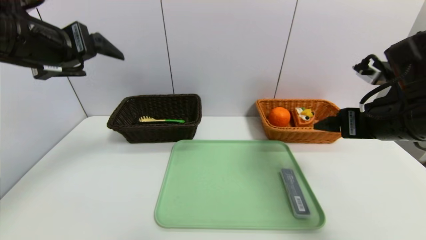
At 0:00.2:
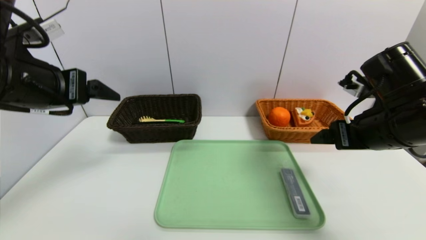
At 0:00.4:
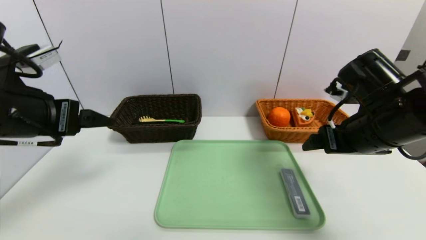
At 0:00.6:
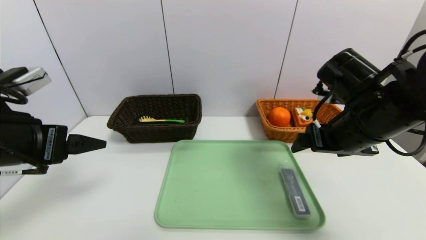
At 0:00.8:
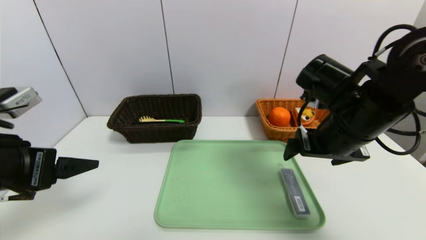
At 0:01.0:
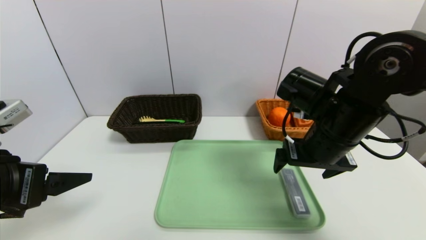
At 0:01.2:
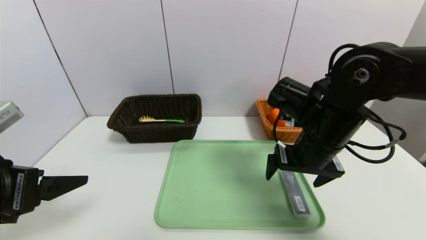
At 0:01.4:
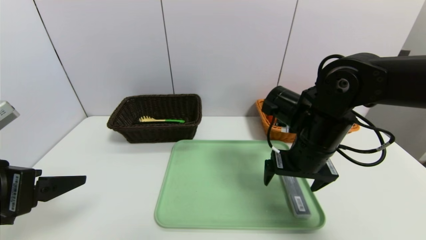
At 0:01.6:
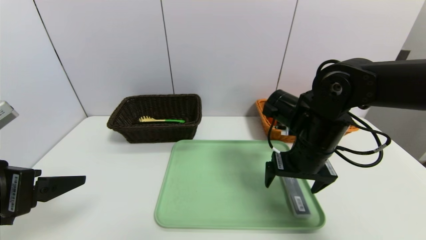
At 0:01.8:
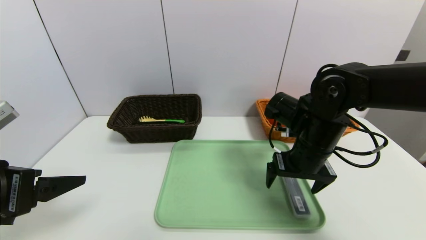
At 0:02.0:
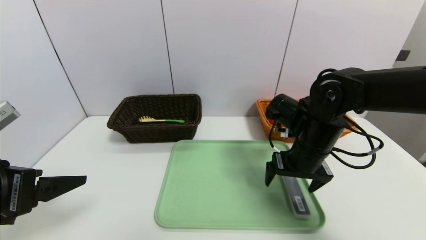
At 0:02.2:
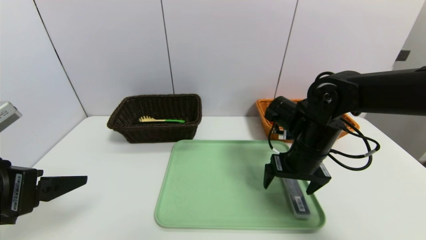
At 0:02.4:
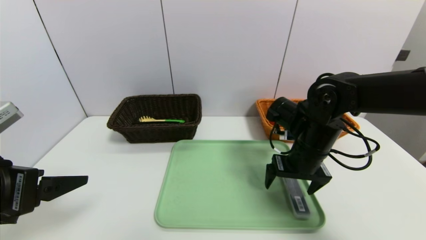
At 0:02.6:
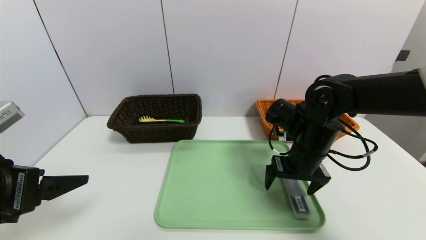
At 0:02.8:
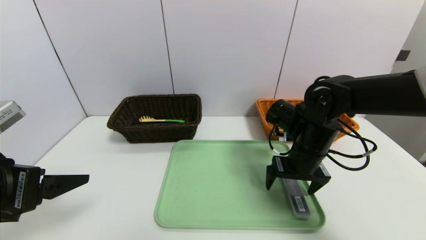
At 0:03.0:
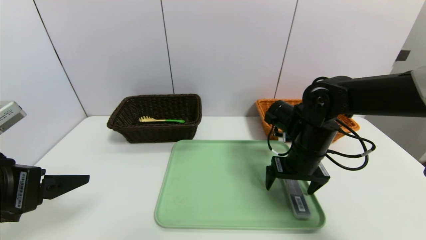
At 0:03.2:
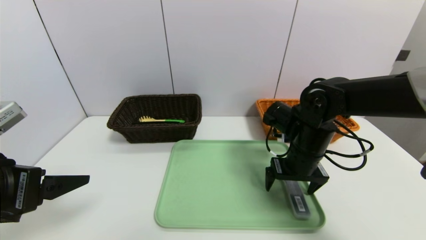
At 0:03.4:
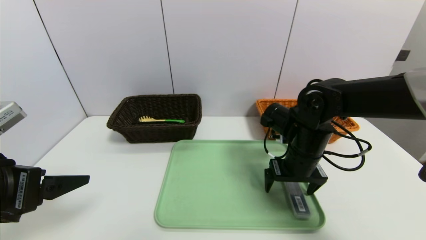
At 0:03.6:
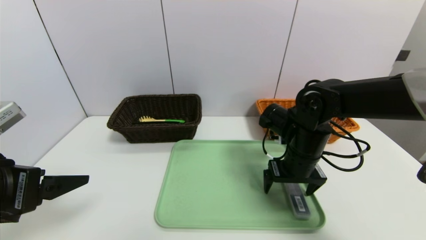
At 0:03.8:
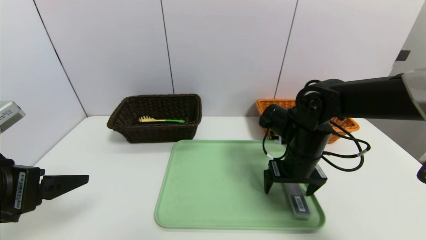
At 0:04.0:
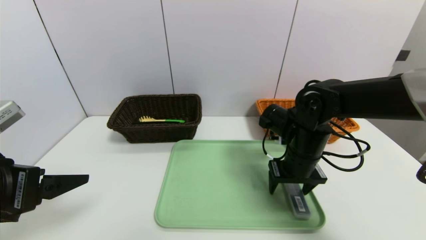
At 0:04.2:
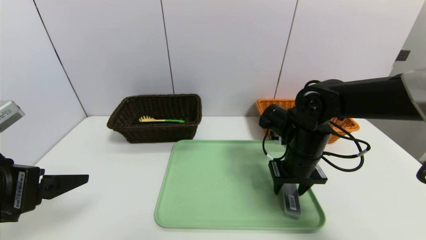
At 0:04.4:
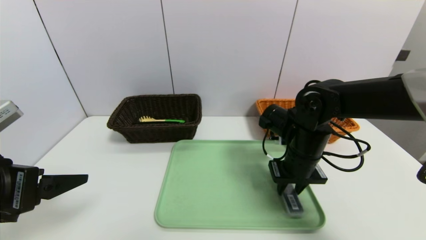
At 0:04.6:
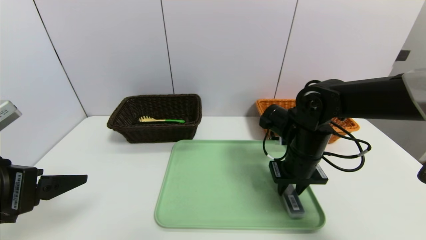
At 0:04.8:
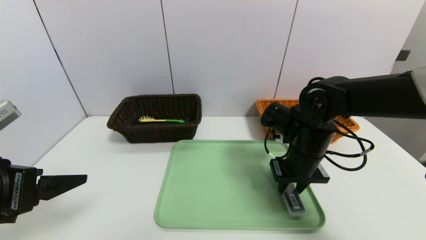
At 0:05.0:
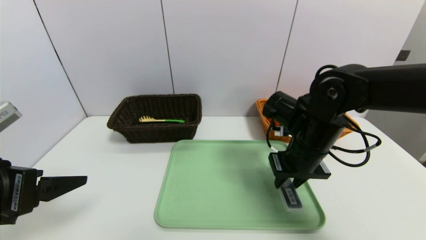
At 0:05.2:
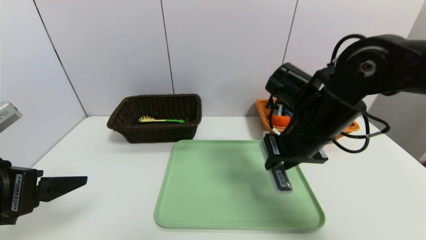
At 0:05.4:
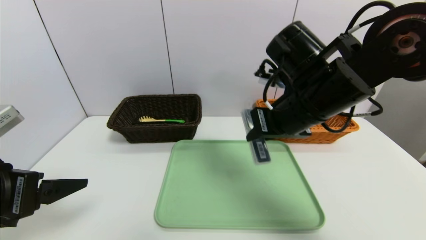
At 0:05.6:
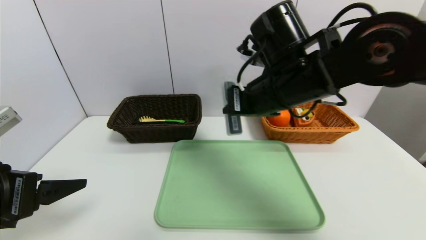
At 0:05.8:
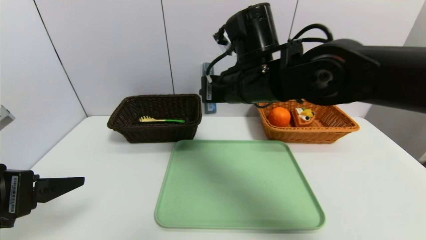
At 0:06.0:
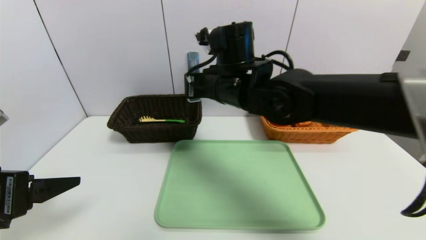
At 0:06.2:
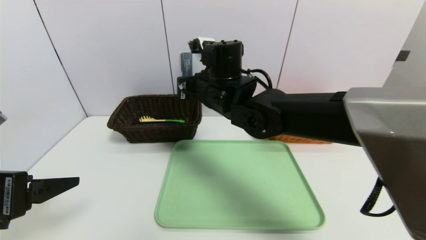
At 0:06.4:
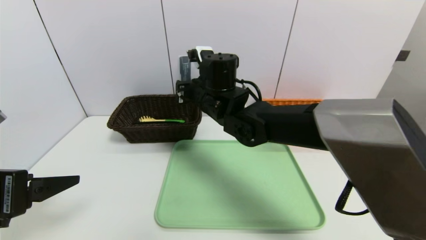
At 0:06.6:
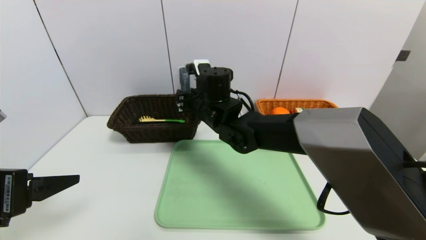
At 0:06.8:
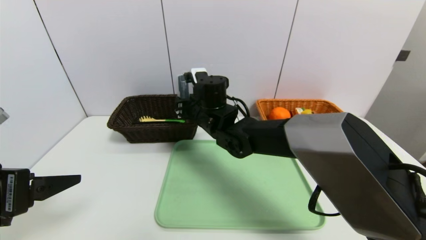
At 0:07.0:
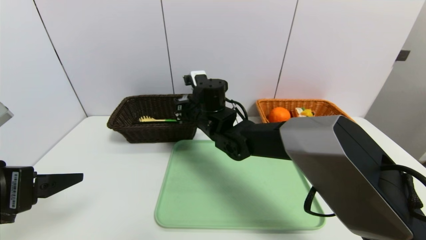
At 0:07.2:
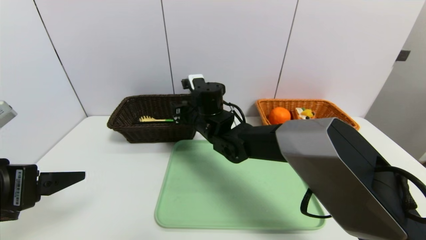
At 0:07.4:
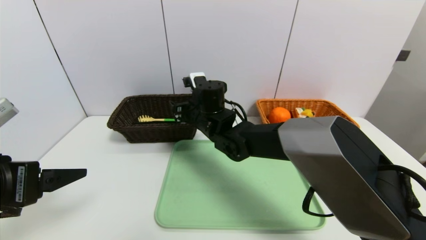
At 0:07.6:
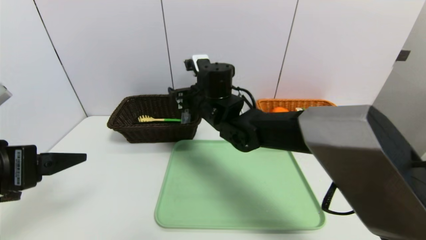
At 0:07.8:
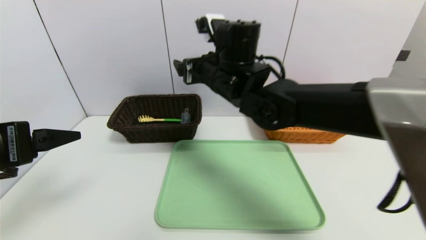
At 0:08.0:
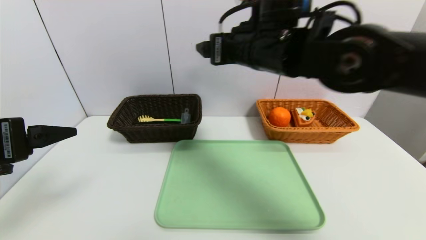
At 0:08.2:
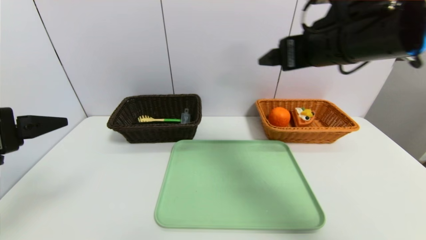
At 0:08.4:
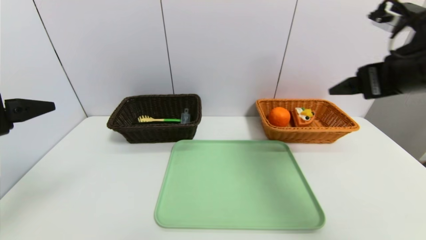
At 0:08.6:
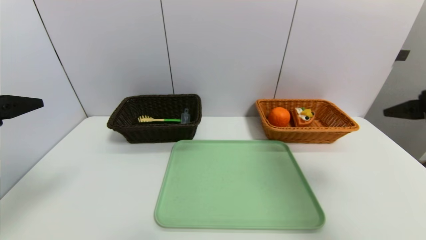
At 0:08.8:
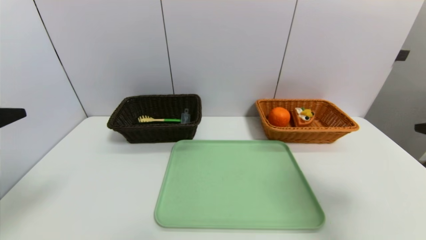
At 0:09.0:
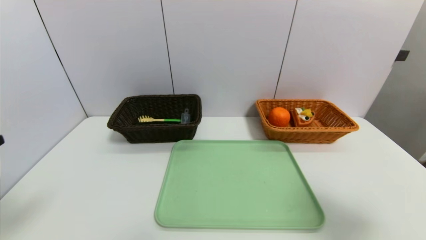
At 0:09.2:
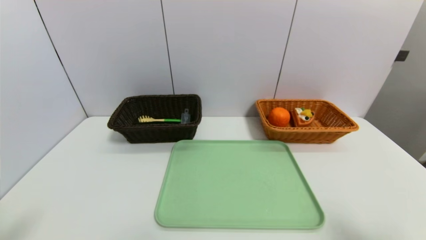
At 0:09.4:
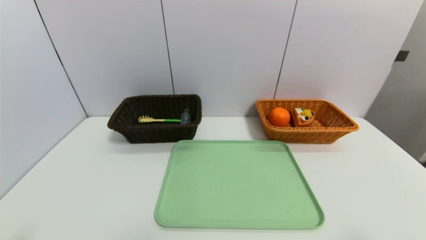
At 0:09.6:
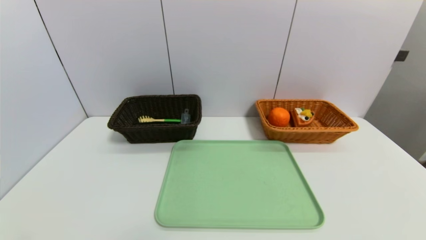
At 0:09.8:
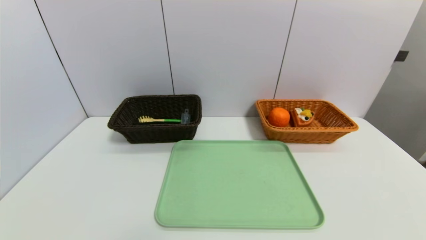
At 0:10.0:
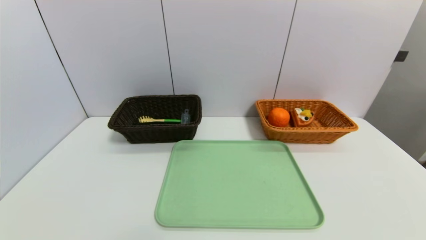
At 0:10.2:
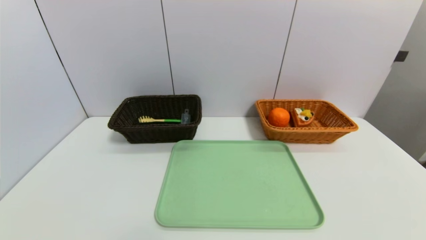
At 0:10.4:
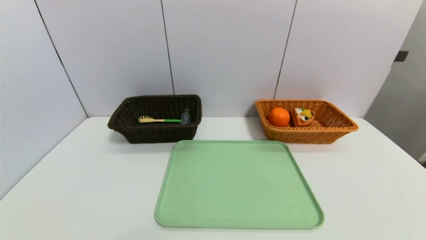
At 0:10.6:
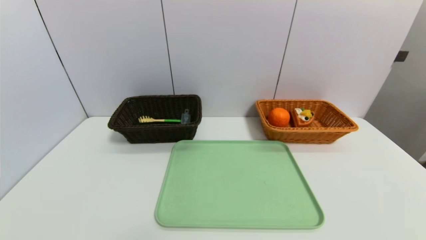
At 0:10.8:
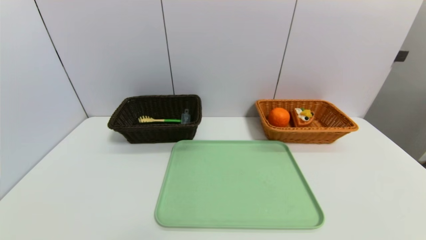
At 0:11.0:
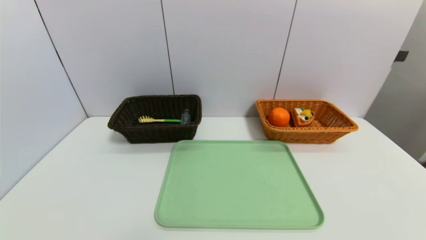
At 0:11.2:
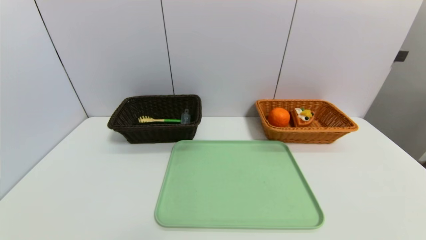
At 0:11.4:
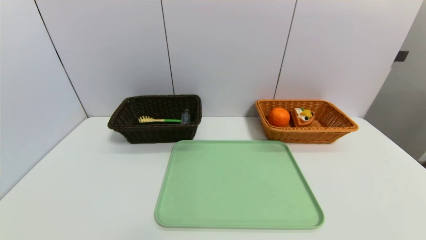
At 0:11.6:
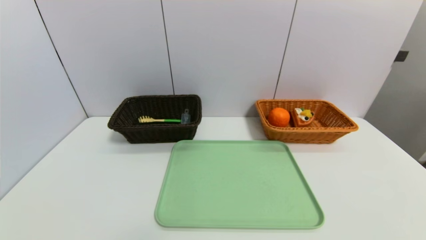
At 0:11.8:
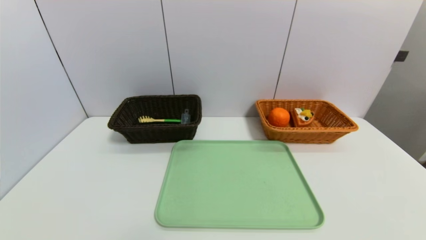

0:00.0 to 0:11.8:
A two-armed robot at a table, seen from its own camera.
Task of the whole recording: place the food in the right basket with the right gripper, and place the non food items in the left basket with the left gripper.
Step, 0:00.0 to 0:07.6: Grasp the compass and put it in the left basket.
0:00.0 to 0:01.4: The left gripper travels backward and downward by some 15 cm; the right gripper goes about 10 cm to the left and downward.
0:01.4 to 0:03.0: The right gripper ends up about 5 cm from where it was.
0:03.0 to 0:04.4: The right gripper closes.
0:04.4 to 0:06.0: The right gripper is displaced to the left and upward by about 20 cm.
0:06.0 to 0:07.4: The right gripper goes about 10 cm downward and forward, and opens its fingers.
0:07.4 to 0:08.8: The left gripper travels upward by approximately 5 cm. Meanwhile the right gripper goes about 40 cm to the right and backward.
0:08.8 to 0:10.4: The two grippers go approximately 25 cm downward and backward.
